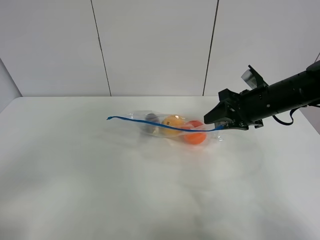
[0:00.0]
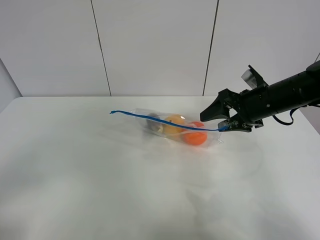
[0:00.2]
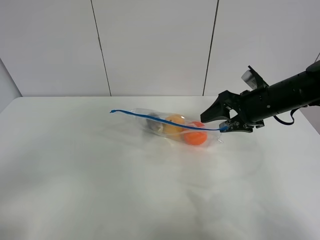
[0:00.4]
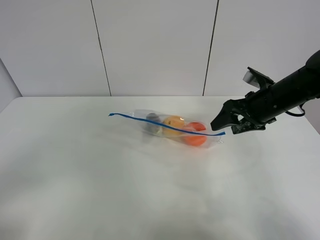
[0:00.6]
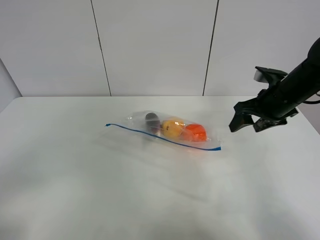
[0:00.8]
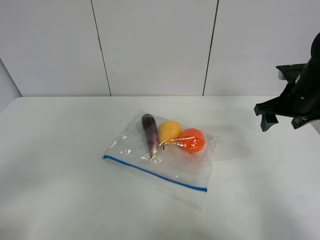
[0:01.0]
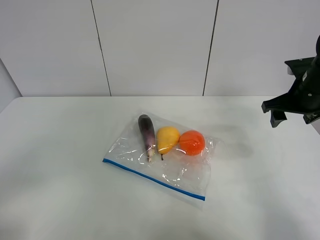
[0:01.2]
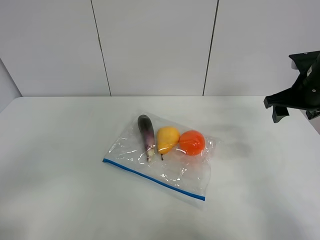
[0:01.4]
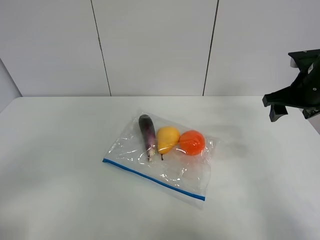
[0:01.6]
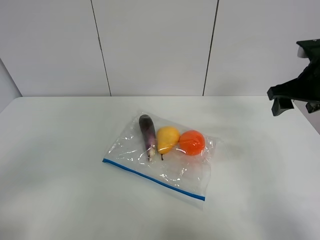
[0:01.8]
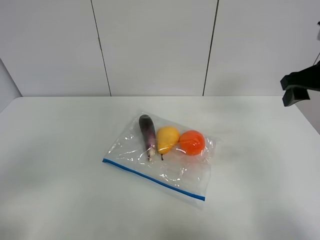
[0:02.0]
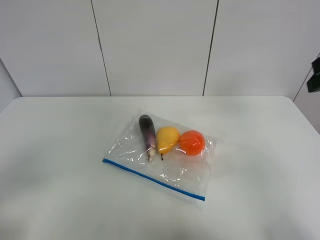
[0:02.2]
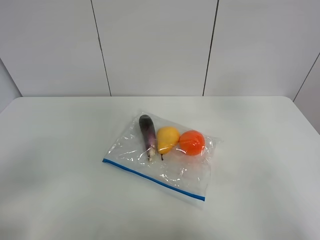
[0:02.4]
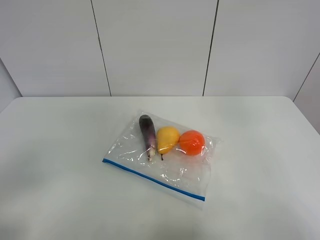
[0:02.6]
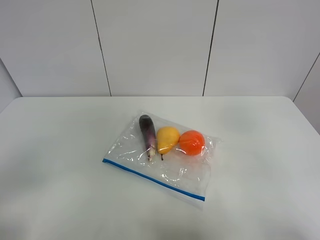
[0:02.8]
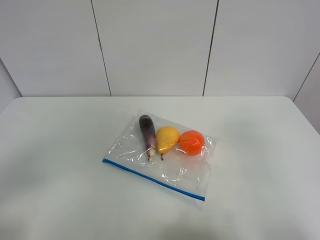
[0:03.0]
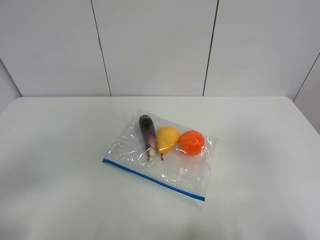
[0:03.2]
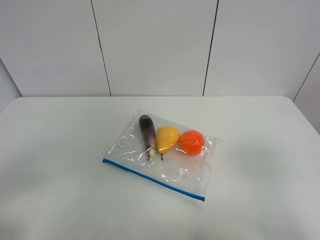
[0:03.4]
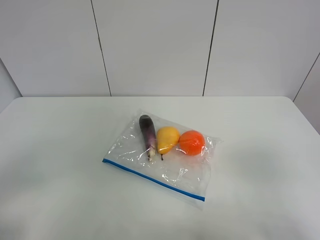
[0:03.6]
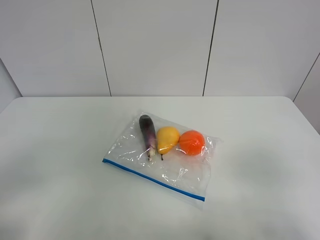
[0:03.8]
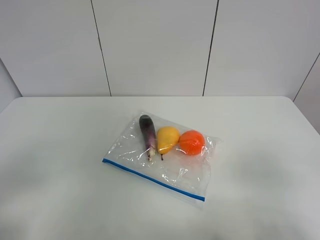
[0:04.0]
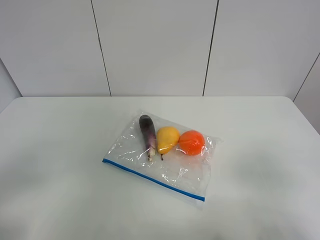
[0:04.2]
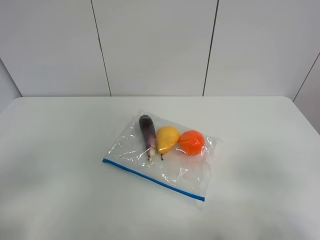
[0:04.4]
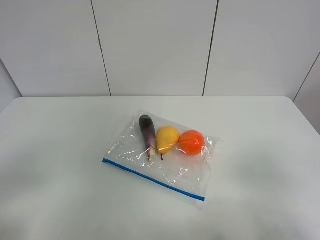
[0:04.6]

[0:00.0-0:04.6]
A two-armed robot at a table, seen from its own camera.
0.0 to 1.6 s: The right gripper moves to the right, about 5 cm.
1.6 to 3.0 s: The right gripper shifts some 30 cm backward.
3.0 to 4.6 s: The right gripper travels downward by some 10 cm.

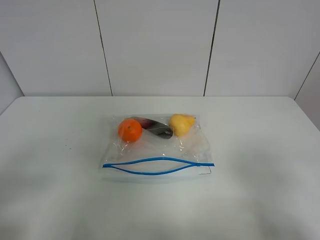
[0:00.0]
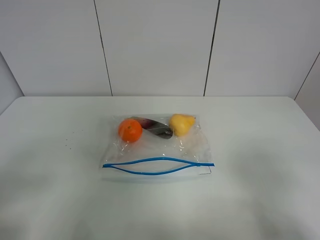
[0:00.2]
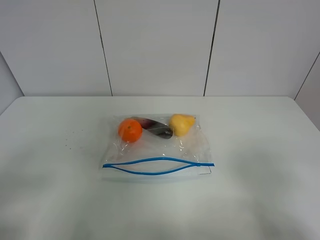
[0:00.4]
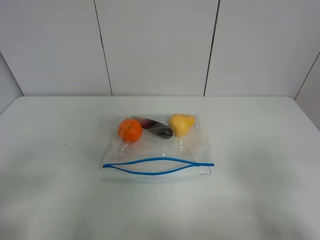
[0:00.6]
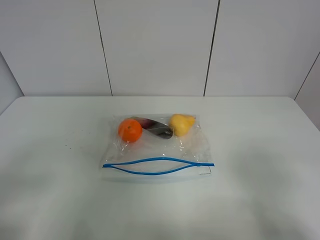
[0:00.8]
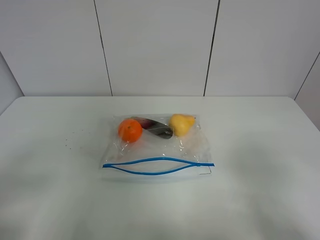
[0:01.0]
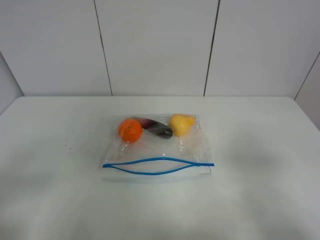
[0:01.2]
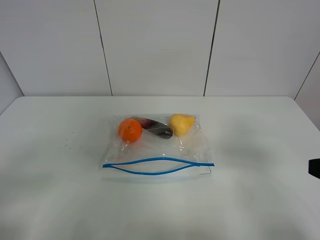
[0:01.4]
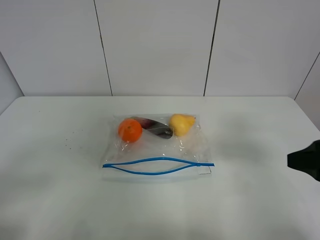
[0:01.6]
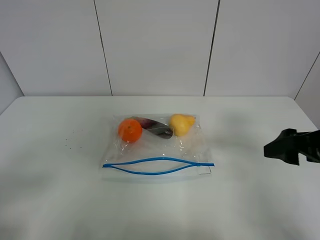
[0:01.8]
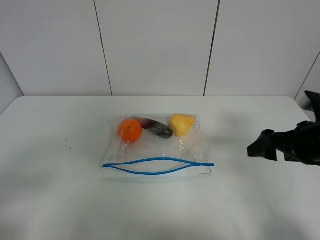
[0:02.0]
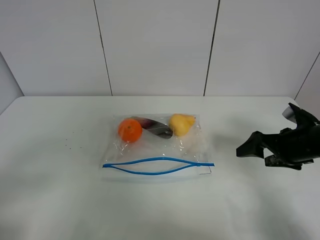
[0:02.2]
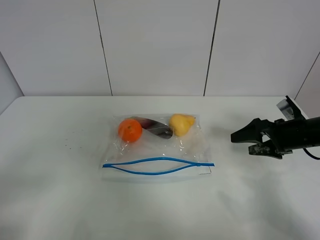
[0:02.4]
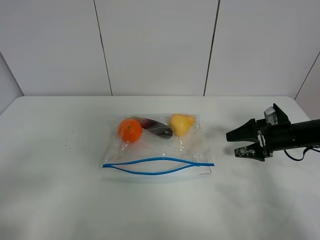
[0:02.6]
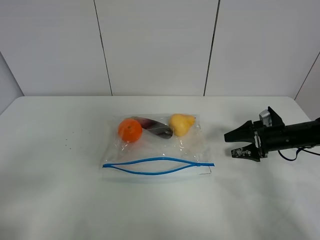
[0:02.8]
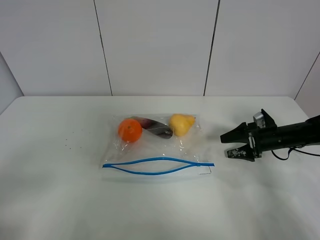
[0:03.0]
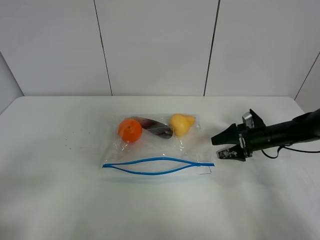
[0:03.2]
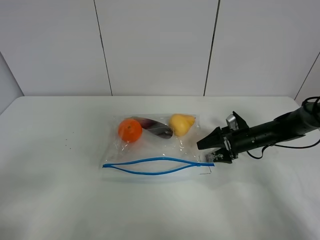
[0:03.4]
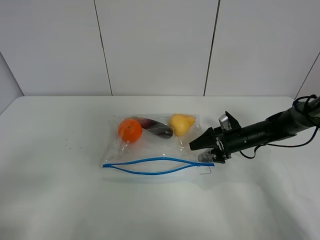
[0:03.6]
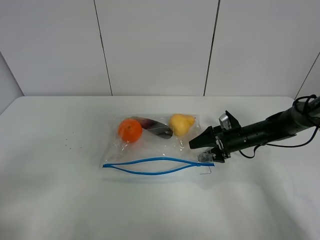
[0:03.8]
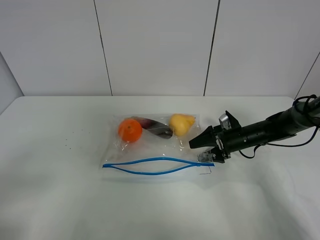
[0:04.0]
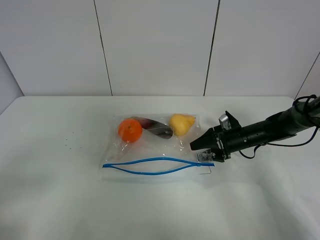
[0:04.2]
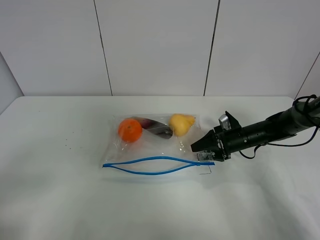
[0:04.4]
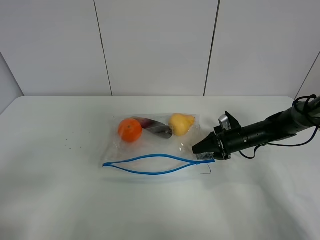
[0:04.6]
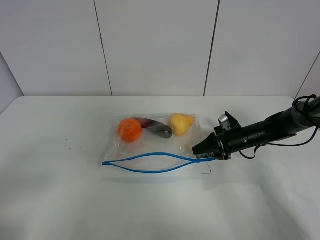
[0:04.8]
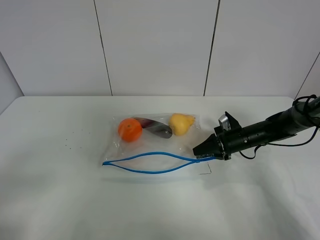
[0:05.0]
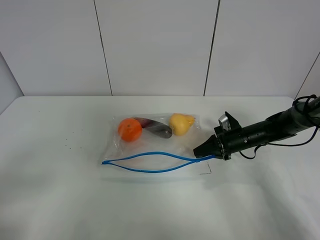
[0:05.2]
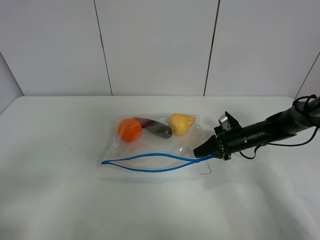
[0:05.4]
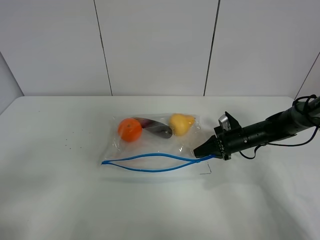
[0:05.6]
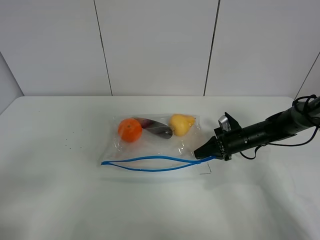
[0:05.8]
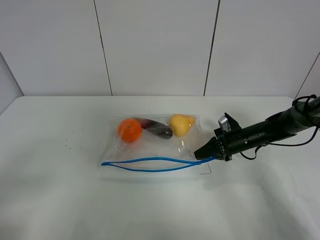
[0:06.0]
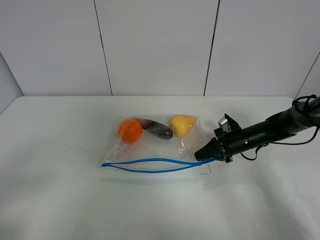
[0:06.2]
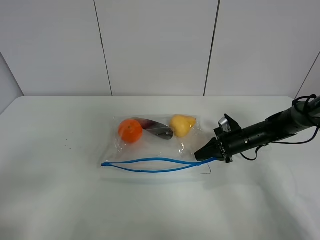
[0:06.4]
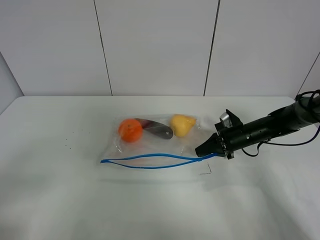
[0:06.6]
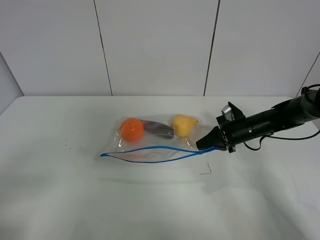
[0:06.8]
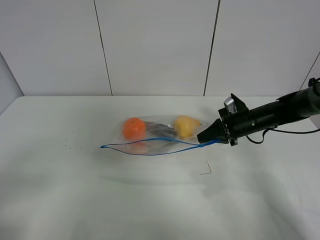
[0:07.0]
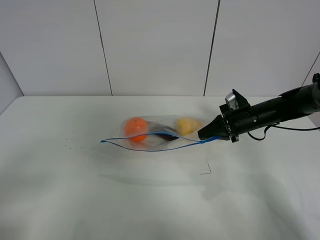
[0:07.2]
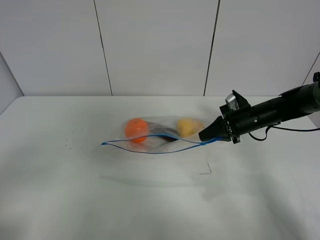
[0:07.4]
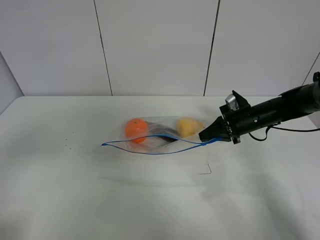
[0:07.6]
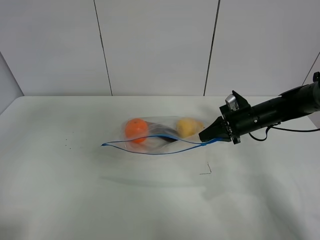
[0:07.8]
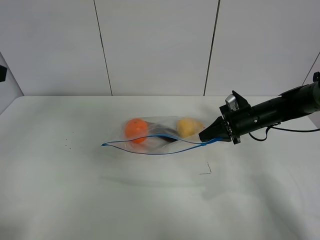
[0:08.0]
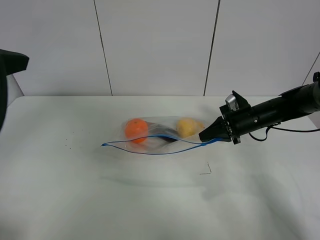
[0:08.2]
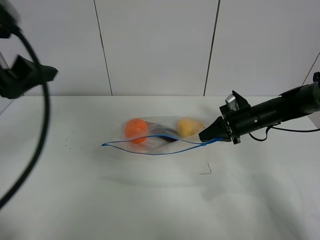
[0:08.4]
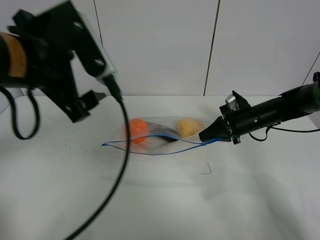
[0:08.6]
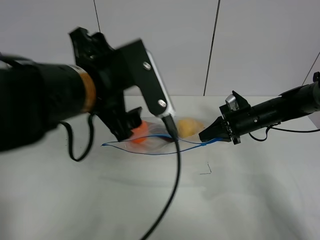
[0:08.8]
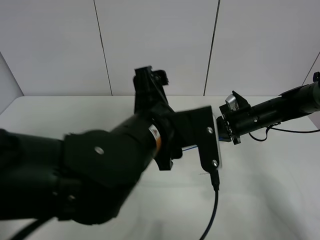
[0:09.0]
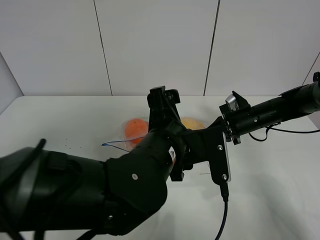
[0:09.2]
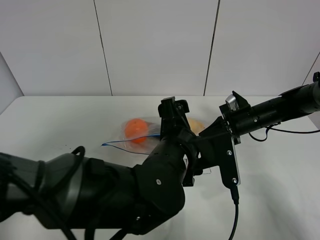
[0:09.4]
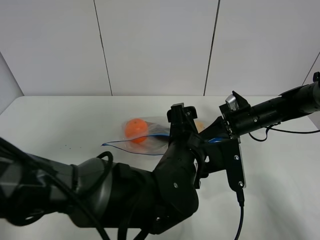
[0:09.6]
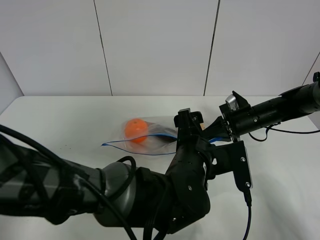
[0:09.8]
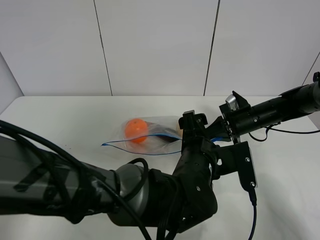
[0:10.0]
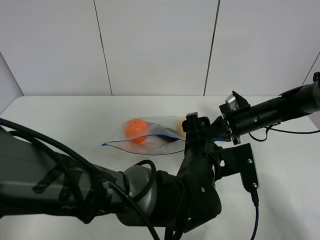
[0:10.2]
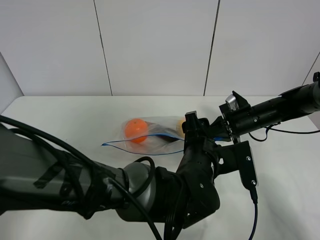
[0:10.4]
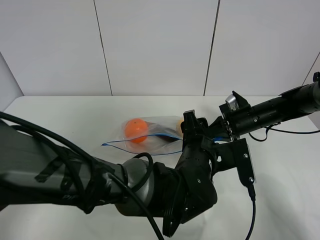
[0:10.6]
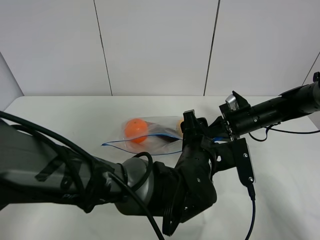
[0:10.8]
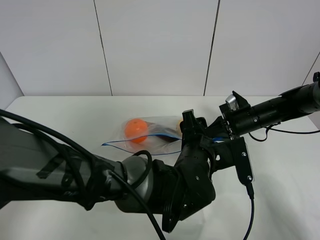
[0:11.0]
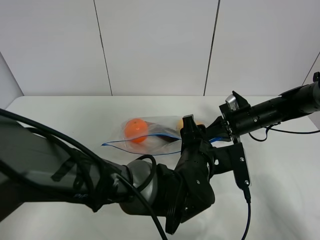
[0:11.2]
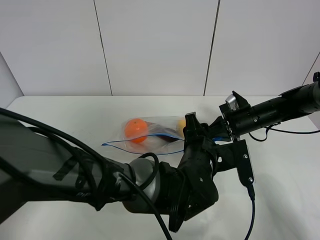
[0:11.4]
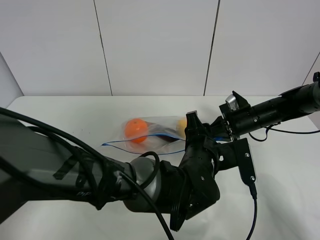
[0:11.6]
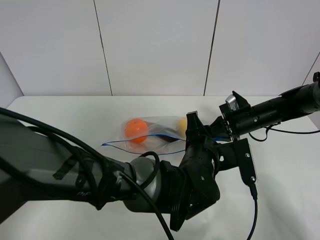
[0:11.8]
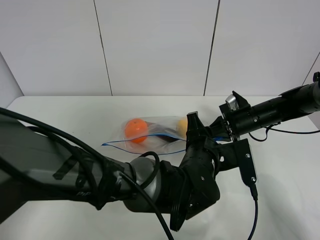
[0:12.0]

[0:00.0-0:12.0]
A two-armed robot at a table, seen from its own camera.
Step, 0.0 to 5.4 s: Grasp the fruit bag with right gripper.
Step, 5.6 to 7.2 s: Lift the fruit bag with your right gripper.
0.0 to 1.6 s: The right gripper shifts approximately 15 cm forward.
1.6 to 3.0 s: The right gripper goes roughly 30 cm forward and downward.
3.0 to 4.4 s: The right gripper goes roughly 10 cm to the left, and closes up.
4.4 to 6.0 s: The right gripper closes.
6.0 to 7.6 s: The right gripper travels upward by approximately 10 cm; the left gripper goes some 10 cm upward and forward.
7.6 to 9.0 s: The left gripper shifts about 30 cm to the right.
9.0 to 10.4 s: The left gripper travels downward and to the right by approximately 10 cm.
10.4 to 12.0 s: The grippers stay close to where they were, moving slightly.

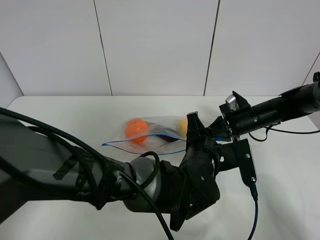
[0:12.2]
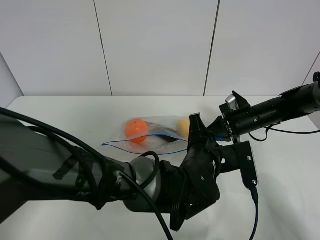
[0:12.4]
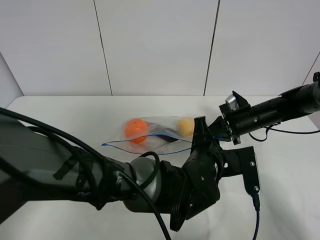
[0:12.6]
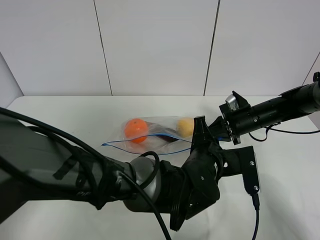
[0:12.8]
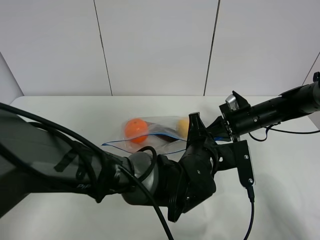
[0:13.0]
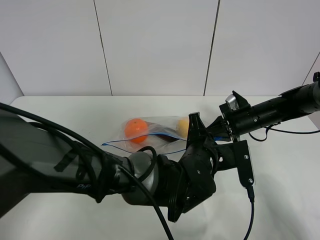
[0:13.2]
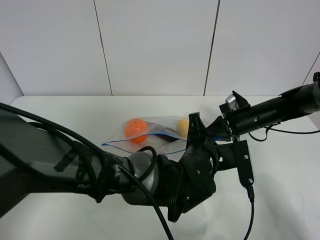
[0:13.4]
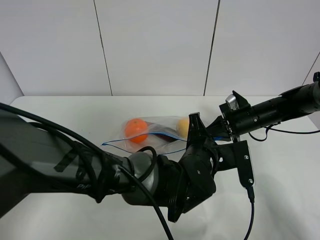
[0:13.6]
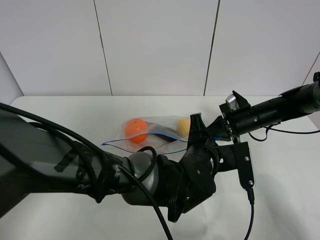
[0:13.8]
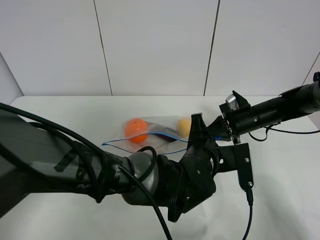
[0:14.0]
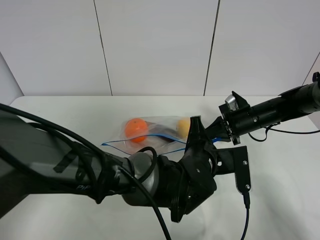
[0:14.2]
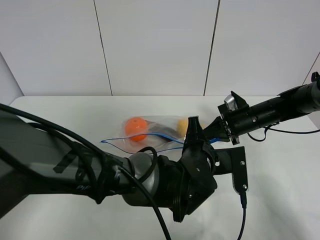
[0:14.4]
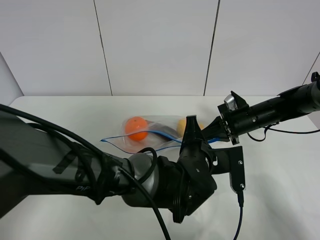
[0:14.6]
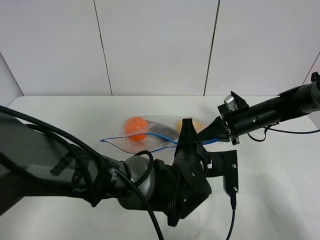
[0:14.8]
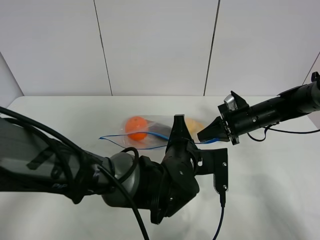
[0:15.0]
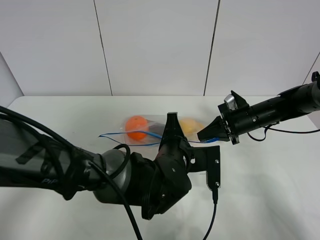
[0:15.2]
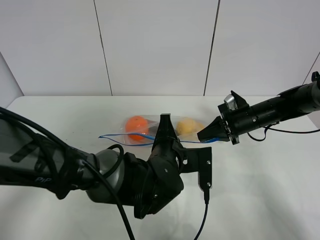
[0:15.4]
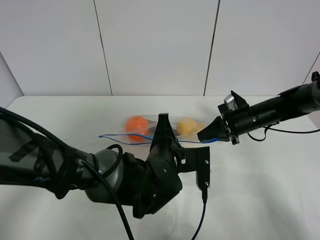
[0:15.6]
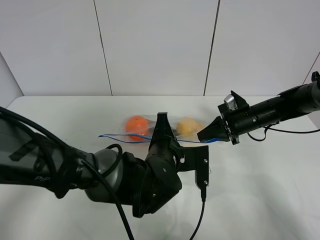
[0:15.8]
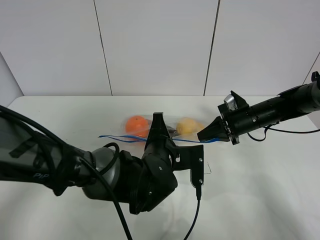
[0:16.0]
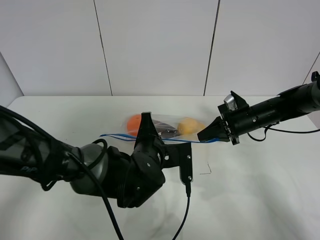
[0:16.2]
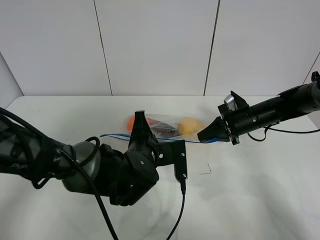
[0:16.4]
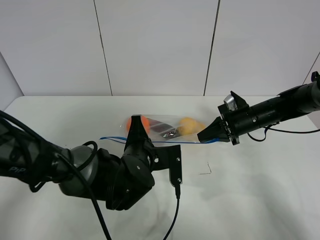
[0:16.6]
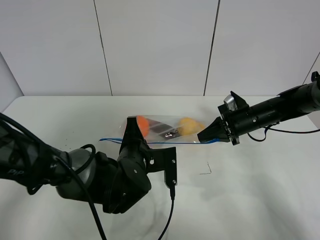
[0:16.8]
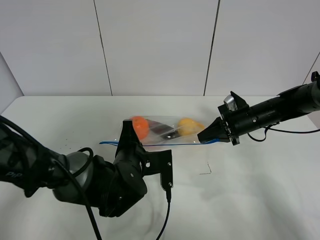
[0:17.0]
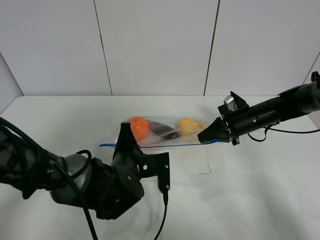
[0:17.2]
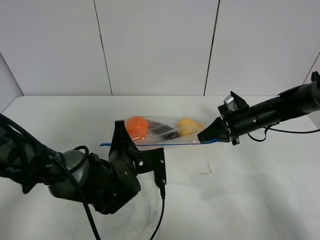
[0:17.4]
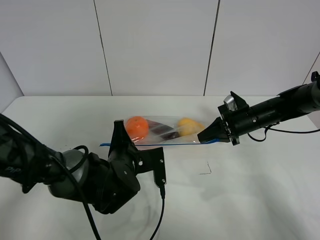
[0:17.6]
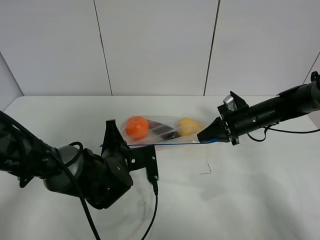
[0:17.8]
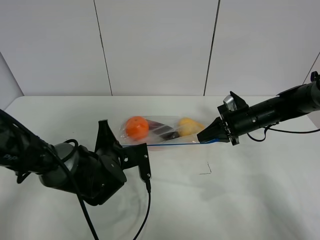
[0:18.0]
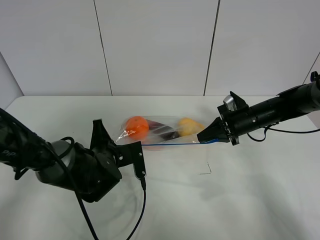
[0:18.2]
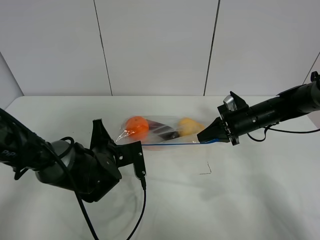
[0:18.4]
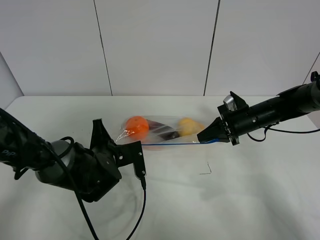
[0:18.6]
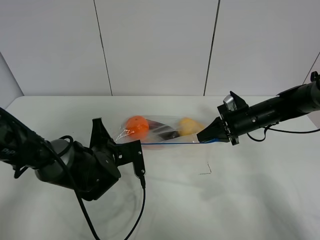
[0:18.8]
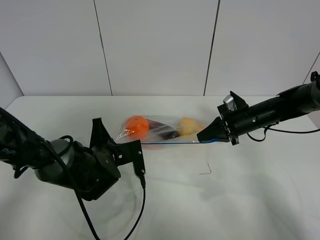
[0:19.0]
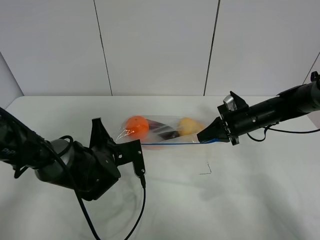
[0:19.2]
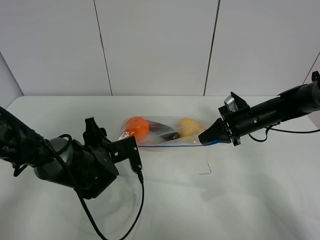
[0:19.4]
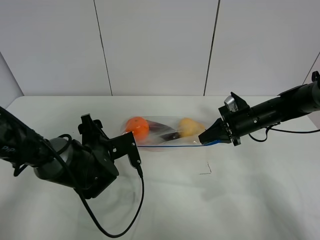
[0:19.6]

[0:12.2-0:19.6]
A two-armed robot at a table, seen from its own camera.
Step, 12.2 to 19.6 s: Pull the fruit bag with left gripper.
12.2 to 13.6 s: The grippers stay close to where they were, moving slightly.
13.6 to 15.2 s: The left gripper goes some 5 cm to the left.
15.2 to 16.6 s: The left gripper is displaced to the left by approximately 5 cm.
16.6 to 18.2 s: The left gripper goes about 5 cm to the left.
18.2 to 19.6 s: The left gripper opens.
